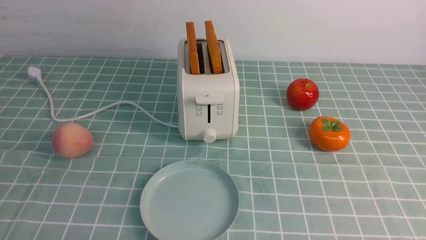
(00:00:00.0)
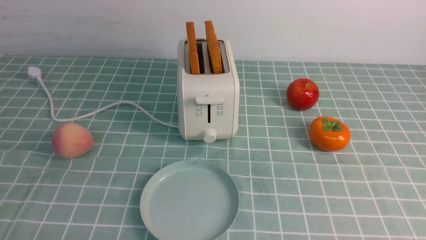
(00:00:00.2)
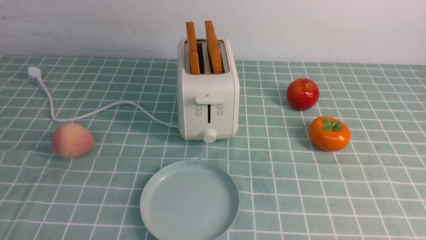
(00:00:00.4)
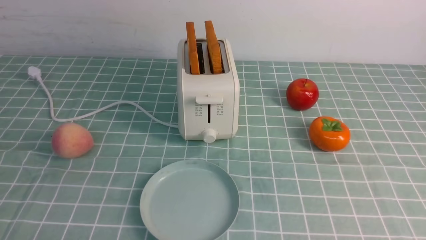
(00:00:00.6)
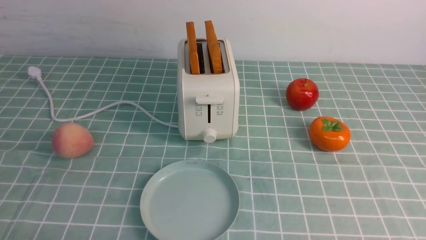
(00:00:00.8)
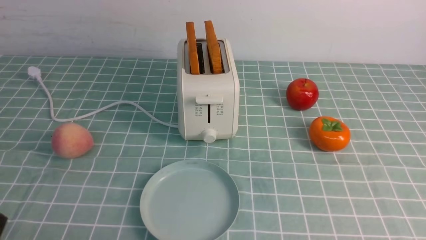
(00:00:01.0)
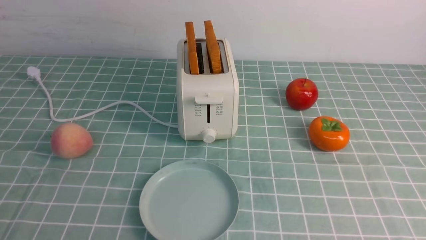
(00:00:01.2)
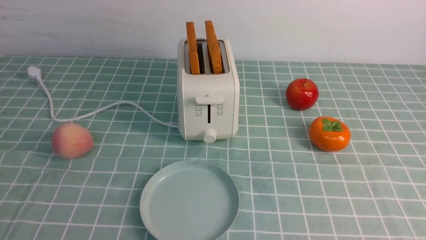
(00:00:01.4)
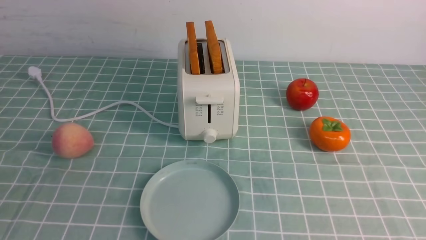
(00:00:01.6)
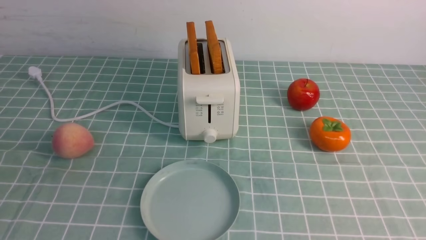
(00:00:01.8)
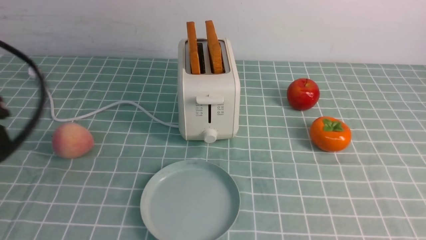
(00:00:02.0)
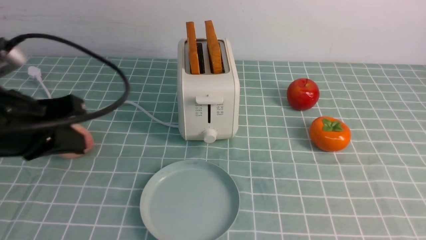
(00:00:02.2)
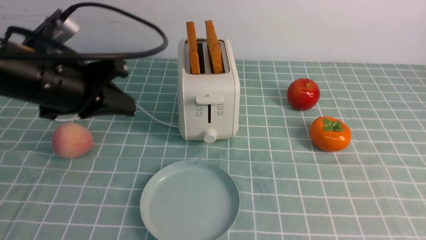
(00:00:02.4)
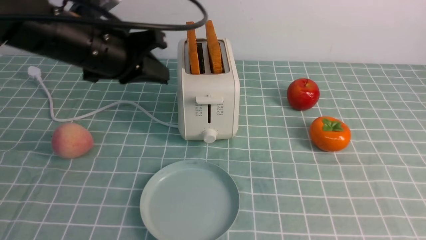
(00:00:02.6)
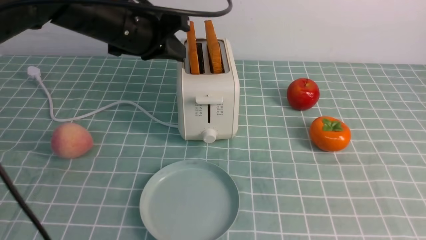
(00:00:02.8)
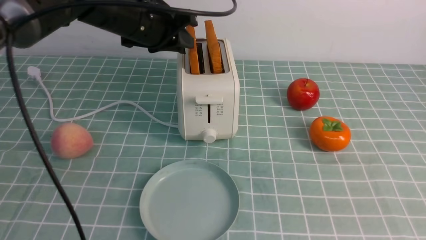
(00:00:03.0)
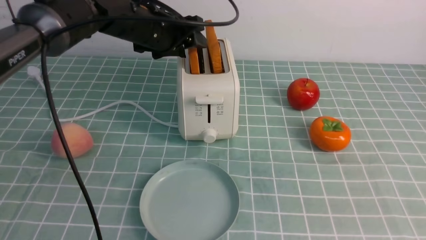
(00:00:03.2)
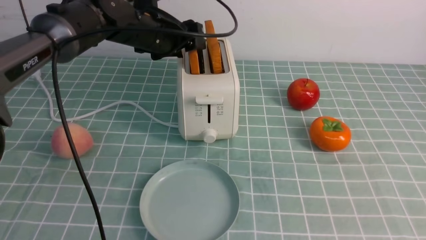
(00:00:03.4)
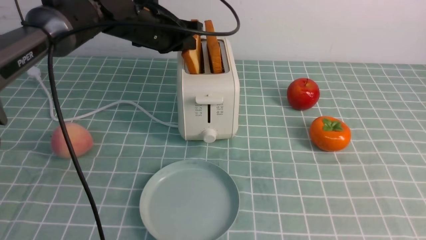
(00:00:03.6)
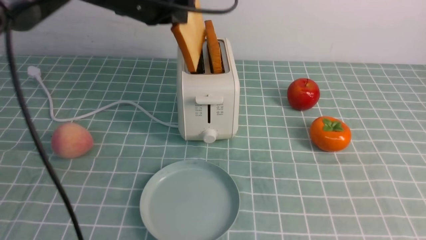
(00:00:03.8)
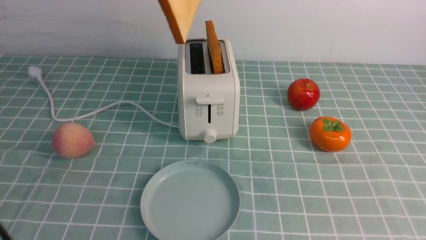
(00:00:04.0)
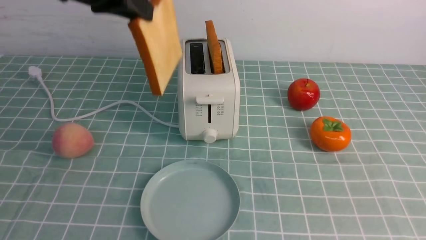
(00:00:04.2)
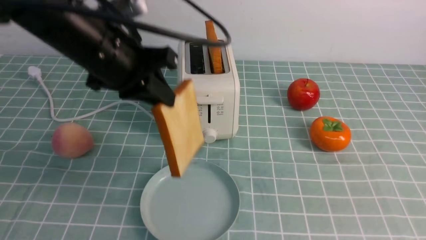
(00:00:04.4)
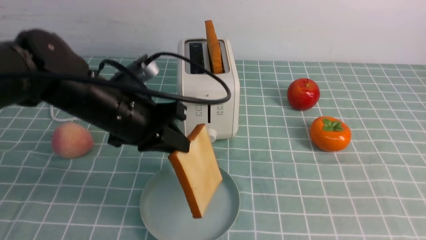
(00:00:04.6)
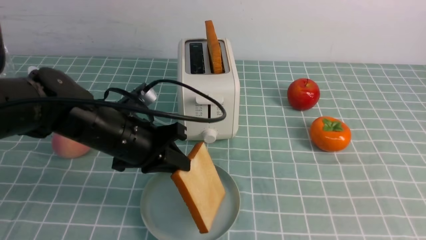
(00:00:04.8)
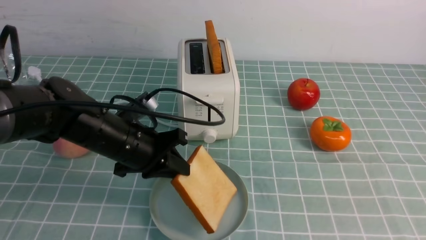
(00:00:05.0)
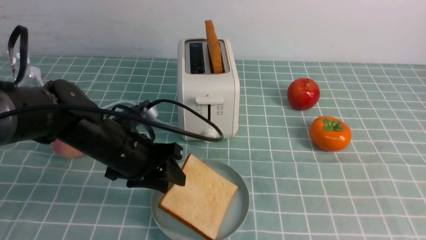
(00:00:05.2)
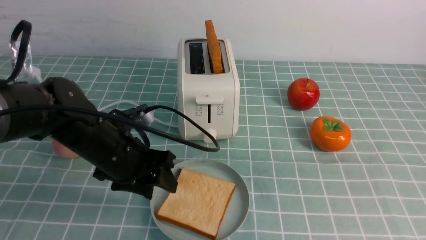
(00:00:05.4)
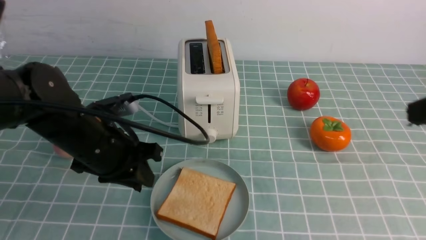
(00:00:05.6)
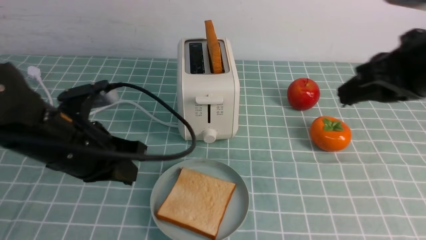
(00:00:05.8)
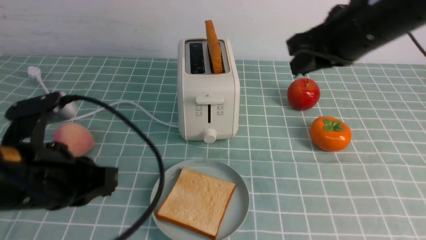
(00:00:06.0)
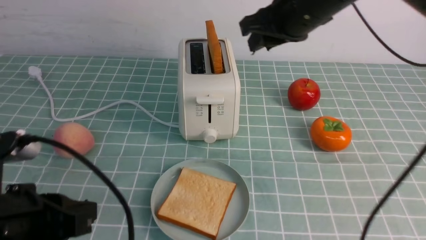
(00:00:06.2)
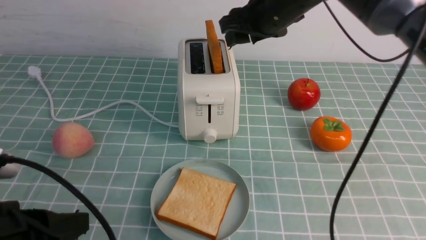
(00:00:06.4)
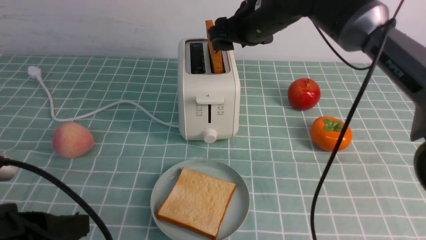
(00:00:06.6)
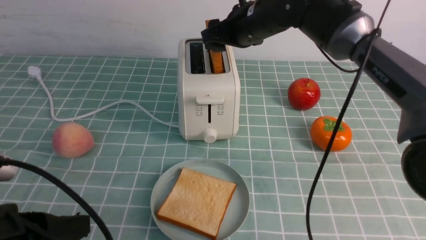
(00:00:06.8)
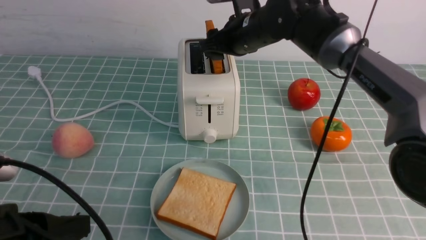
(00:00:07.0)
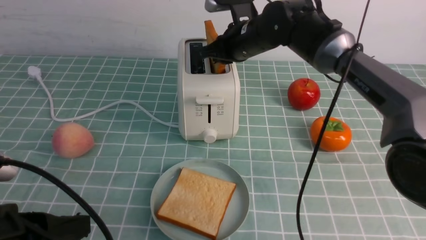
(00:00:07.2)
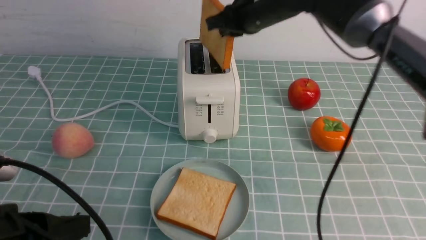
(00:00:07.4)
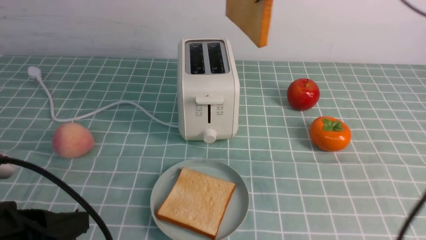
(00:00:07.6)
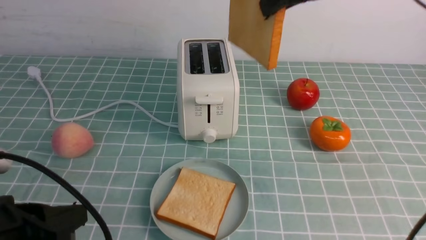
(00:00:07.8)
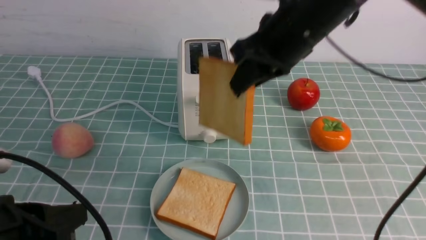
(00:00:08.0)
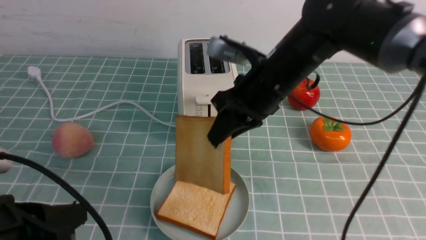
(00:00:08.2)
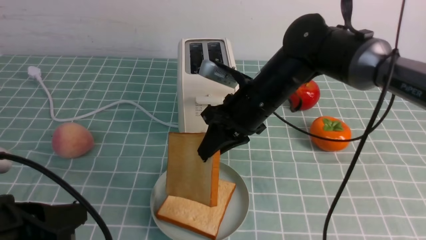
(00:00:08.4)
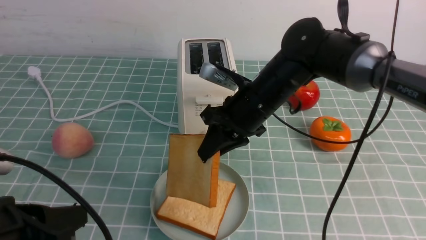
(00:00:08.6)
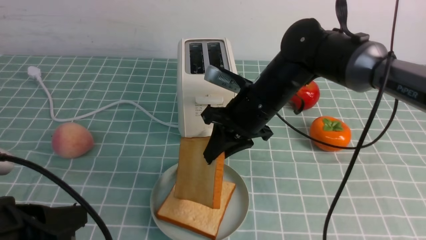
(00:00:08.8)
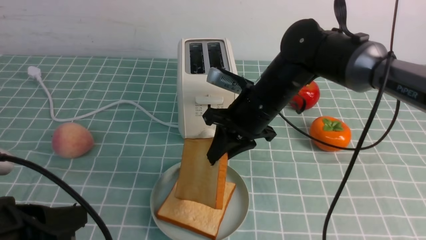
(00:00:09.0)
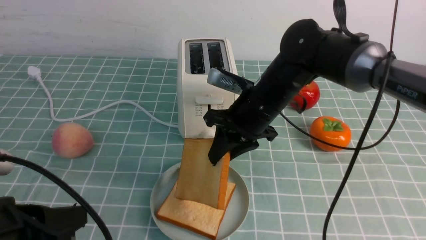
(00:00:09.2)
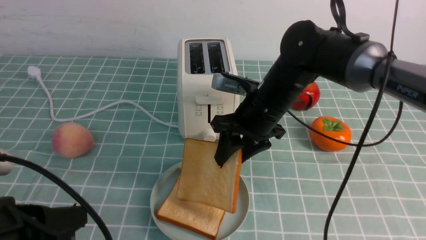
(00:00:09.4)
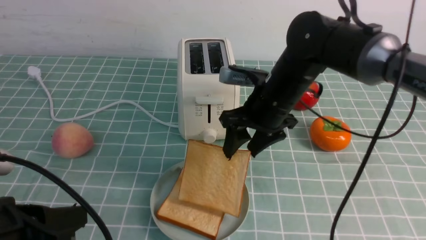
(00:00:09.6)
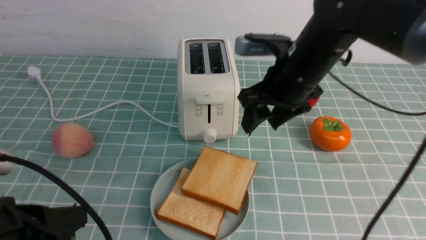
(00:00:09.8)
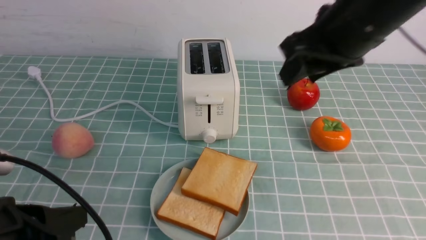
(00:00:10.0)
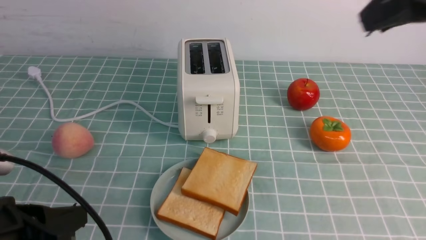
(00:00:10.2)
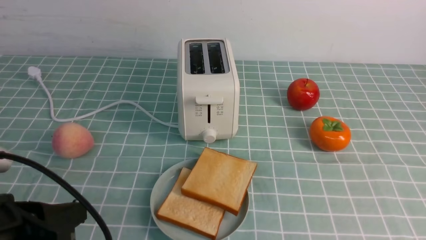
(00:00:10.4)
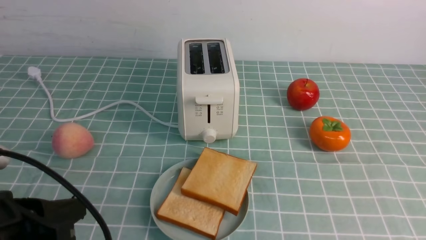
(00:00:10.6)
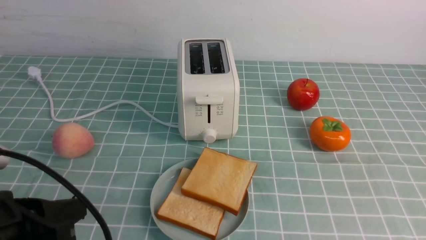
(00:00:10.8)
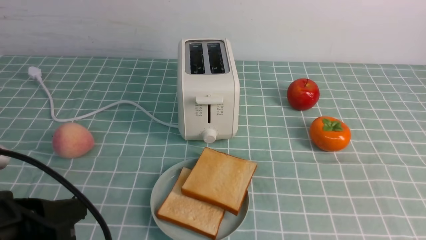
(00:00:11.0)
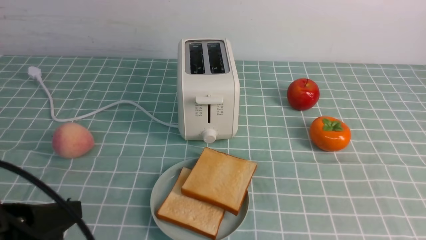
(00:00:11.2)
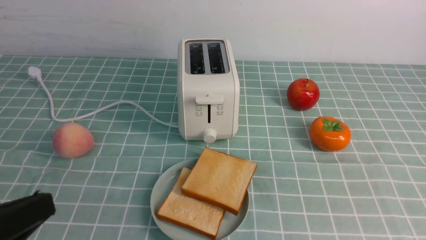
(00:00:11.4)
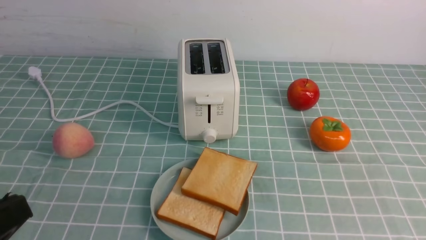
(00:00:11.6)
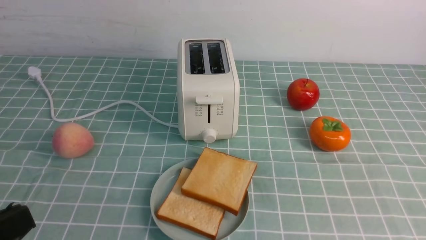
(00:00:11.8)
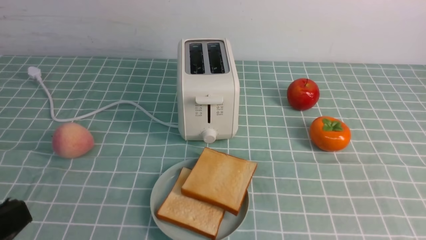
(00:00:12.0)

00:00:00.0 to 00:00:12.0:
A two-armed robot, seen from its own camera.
Task of the whole recording: take toasted bread from bread machine on blue coffee table place on plate.
Step, 00:00:00.0 to 00:00:04.0: use the left arm to take out a slice of bread.
Step, 00:00:04.2 to 00:00:05.6: use the left arm to put a slice of bread into the empty plate.
Step, 00:00:06.0 to 00:00:07.4: use the right arm to take out a slice of bread.
Step, 00:00:07.6 to 00:00:10.0: use the right arm to put a slice of bread into the plate.
00:00:01.6 to 00:00:03.0: The right gripper is displaced upward by approximately 10 cm, and closes up; the left gripper goes roughly 40 cm forward, and opens its fingers.
00:00:03.0 to 00:00:04.4: The left gripper heads backward, covering some 10 cm, and closes up.
00:00:04.4 to 00:00:06.0: The left gripper moves backward and downward, about 15 cm, and opens, then closes again; the right gripper goes roughly 25 cm forward, to the left and upward.
00:00:06.0 to 00:00:07.6: The left gripper travels backward by roughly 5 cm, while the right gripper moves some 15 cm forward and comes back, and opens, then closes again.
00:00:07.6 to 00:00:09.0: The right gripper is displaced downward by about 20 cm.
00:00:09.0 to 00:00:10.4: The right gripper is displaced backward, upward and to the right by approximately 35 cm, and opens, then closes once more.
00:00:10.4 to 00:00:12.0: The left gripper is displaced backward by about 10 cm.

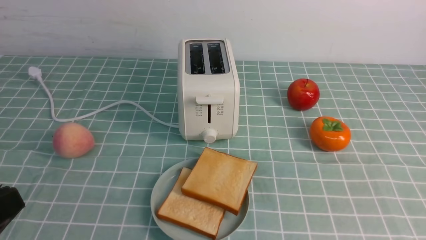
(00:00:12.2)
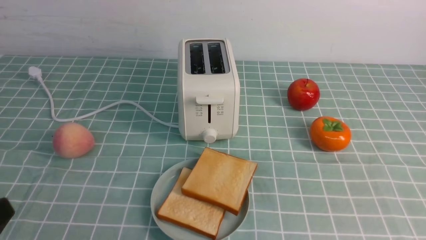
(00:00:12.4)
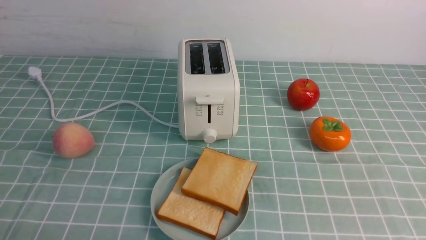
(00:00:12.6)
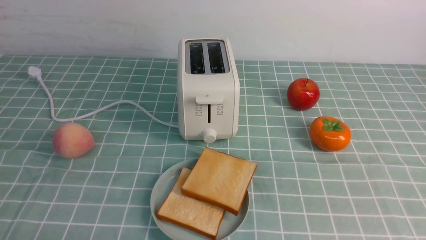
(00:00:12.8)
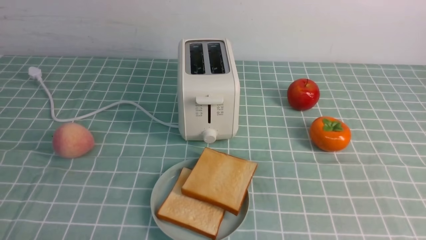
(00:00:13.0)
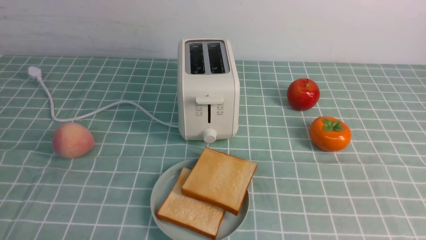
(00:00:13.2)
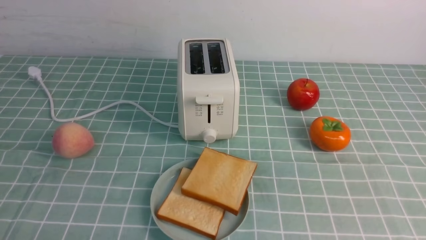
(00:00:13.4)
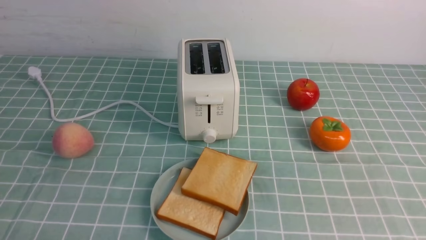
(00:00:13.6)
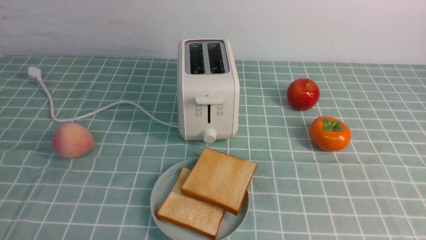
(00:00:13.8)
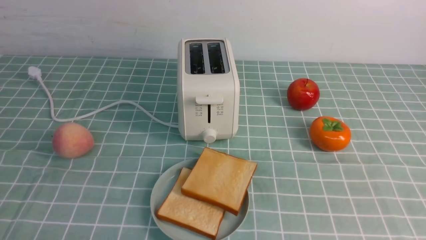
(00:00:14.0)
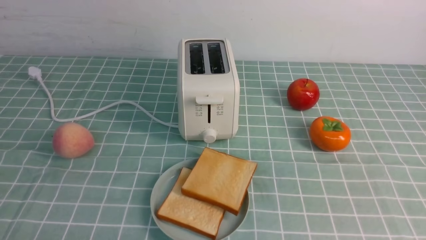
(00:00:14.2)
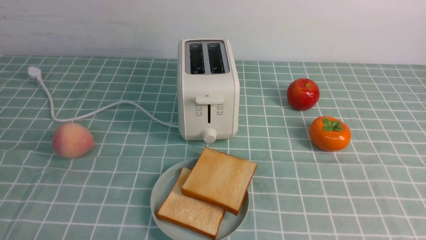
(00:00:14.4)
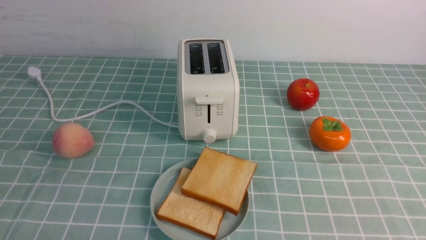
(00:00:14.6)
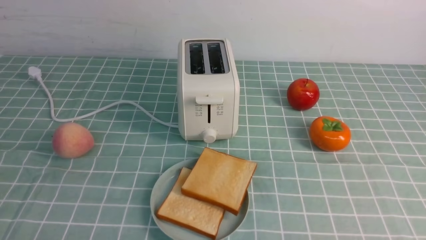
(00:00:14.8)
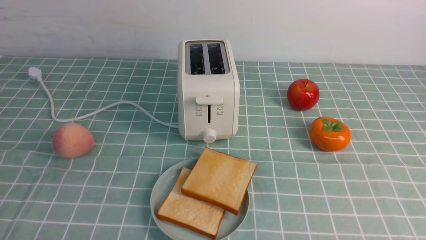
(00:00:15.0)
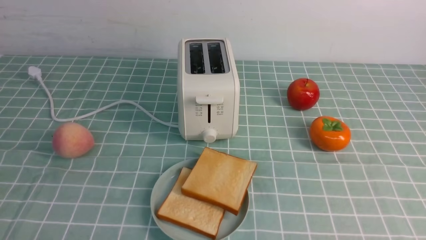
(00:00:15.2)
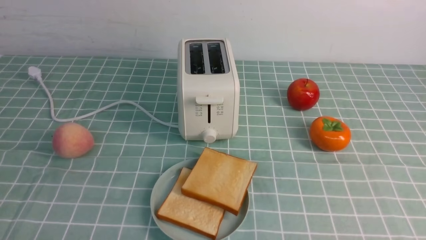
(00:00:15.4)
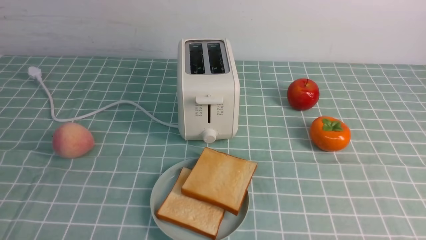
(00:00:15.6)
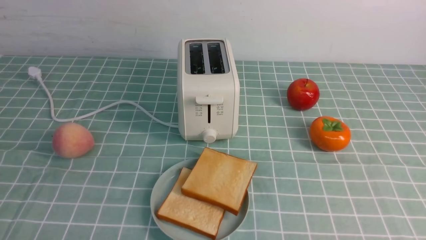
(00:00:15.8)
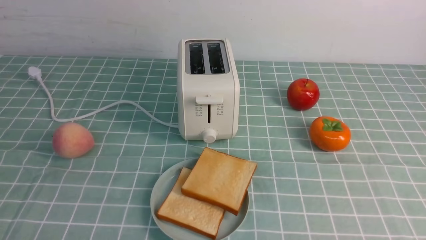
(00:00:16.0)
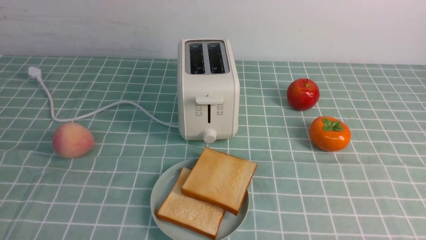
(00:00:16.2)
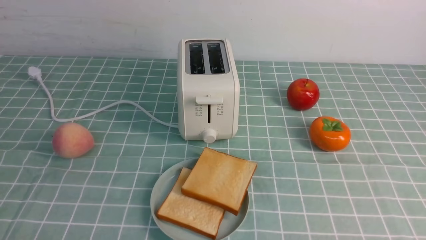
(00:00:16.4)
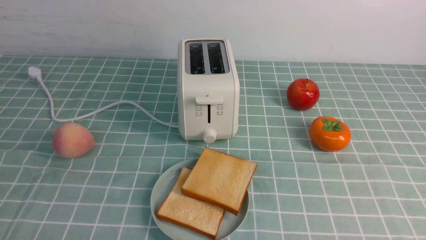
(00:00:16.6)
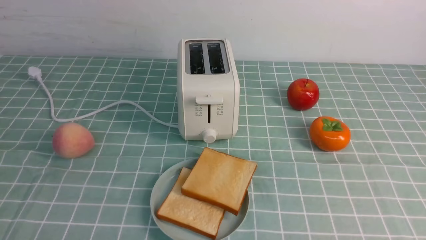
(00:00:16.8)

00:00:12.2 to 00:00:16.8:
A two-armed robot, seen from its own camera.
Task of the whole recording: take toasted bread from bread machine on blue coffee table place on plate.
00:00:12.2 to 00:00:13.8: The left gripper moves downward, about 10 cm.
00:00:15.2 to 00:00:16.8: Both grippers stay about where they are.
